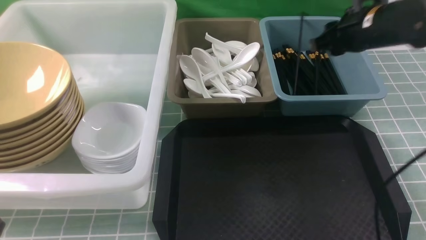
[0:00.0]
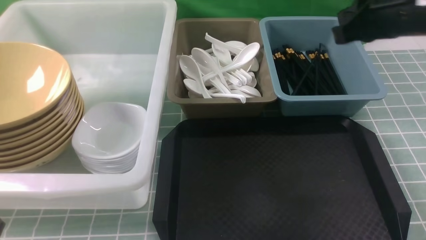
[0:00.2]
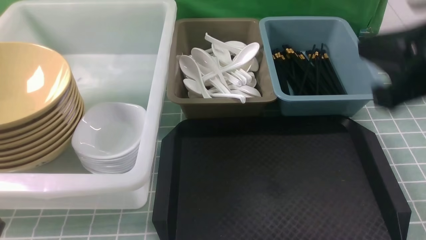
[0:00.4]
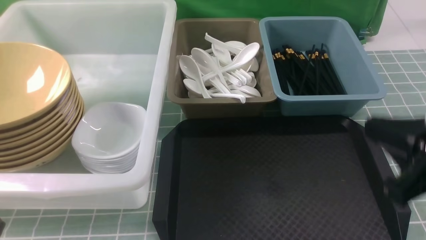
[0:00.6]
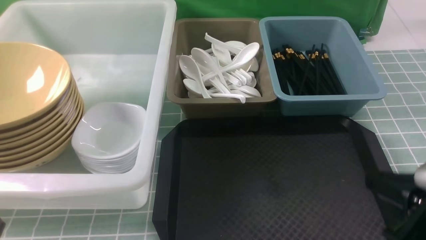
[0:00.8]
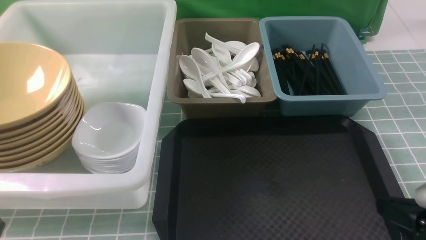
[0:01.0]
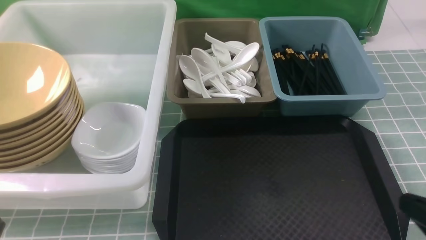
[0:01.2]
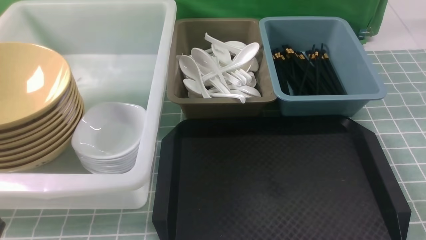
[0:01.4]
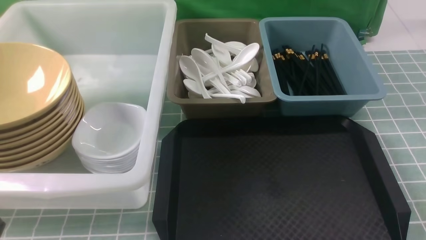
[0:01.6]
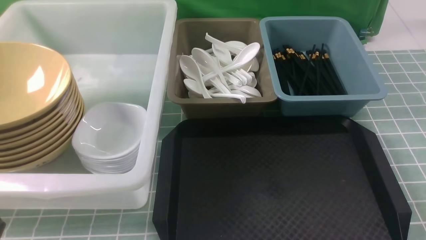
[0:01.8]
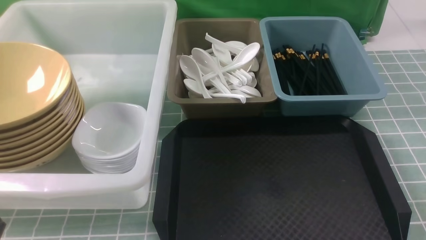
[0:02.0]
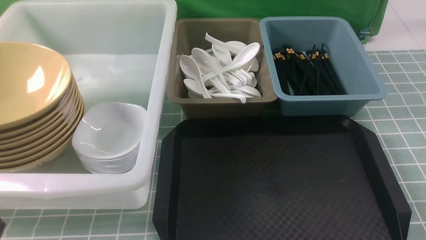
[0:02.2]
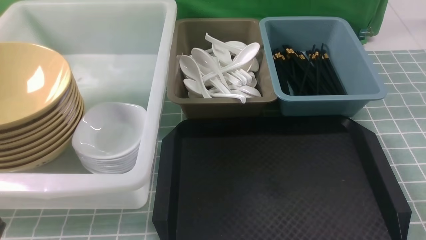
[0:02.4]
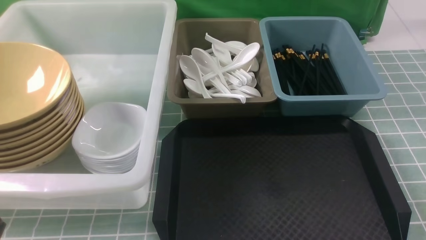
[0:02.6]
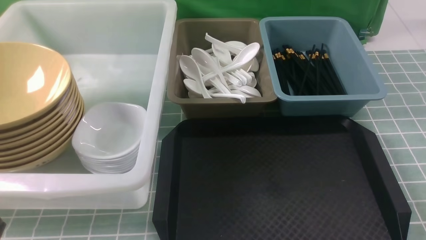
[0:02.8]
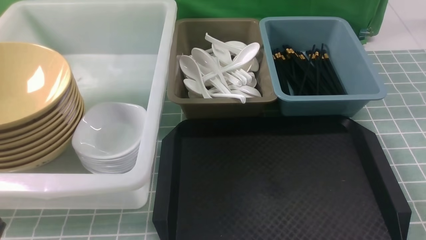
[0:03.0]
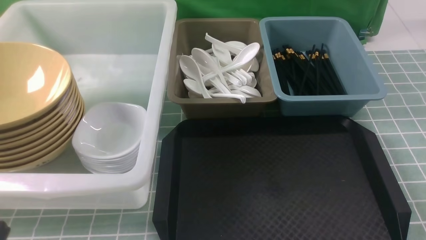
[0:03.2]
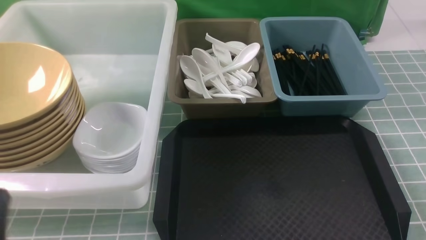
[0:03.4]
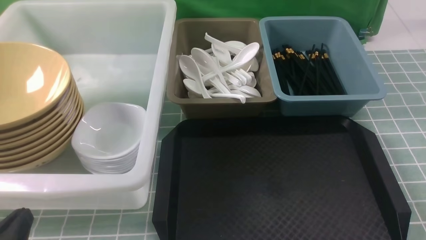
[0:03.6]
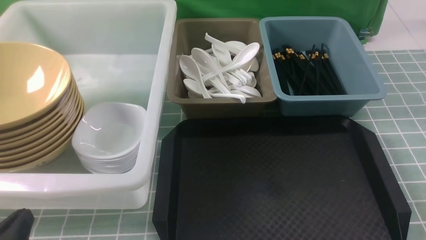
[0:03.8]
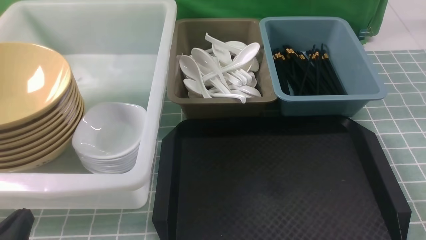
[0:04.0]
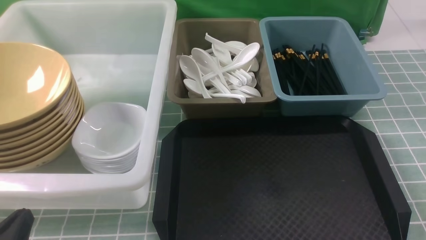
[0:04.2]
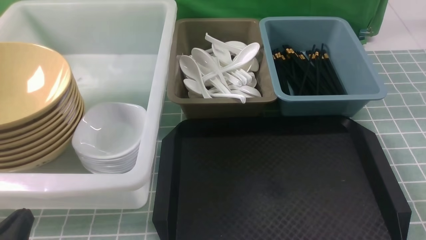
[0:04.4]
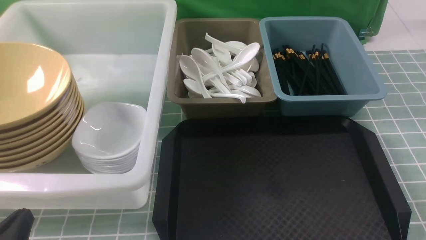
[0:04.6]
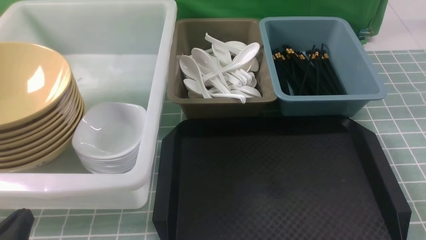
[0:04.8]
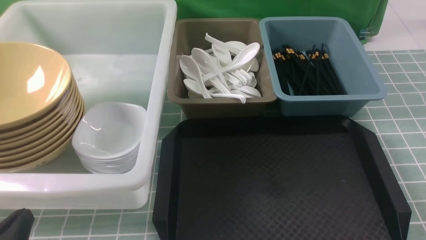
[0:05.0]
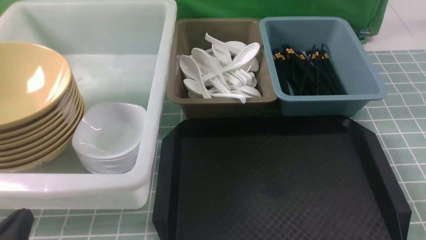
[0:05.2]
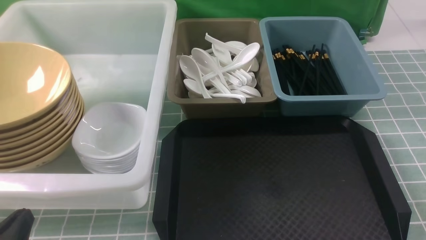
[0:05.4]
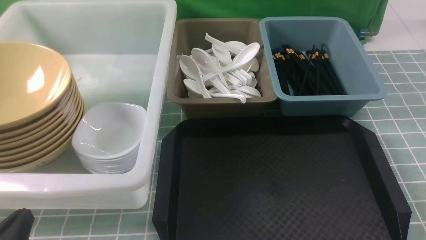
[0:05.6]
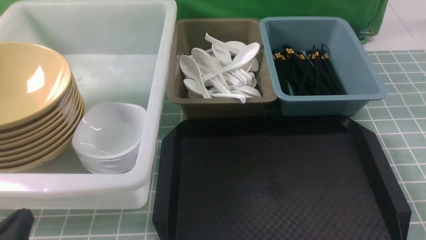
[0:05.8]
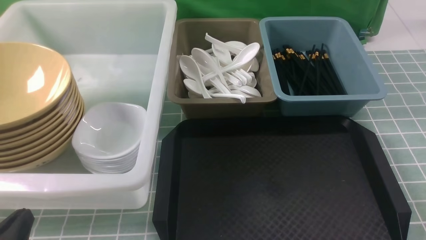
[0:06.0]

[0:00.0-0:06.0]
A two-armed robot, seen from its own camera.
Task of the whole recording: on blue table put chopsticks spoon bowls plates into blue grey white boxes.
0:00.0 to 0:01.6: The right gripper moves backward and downward, about 35 cm, and closes.
0:03.0 to 0:04.4: The left gripper goes approximately 10 cm downward.
0:04.4 to 0:06.0: Both grippers stay about where they are.

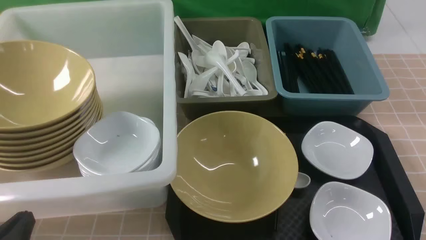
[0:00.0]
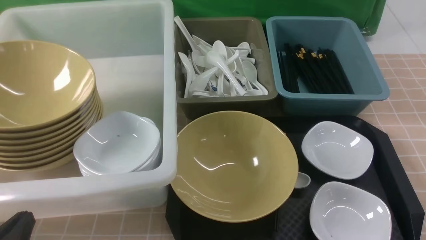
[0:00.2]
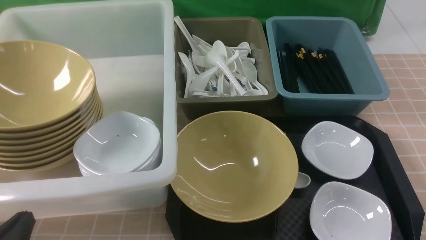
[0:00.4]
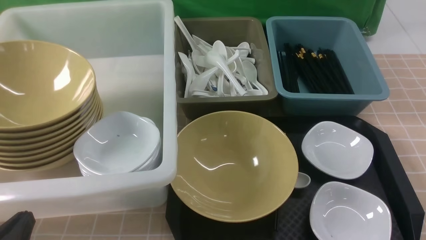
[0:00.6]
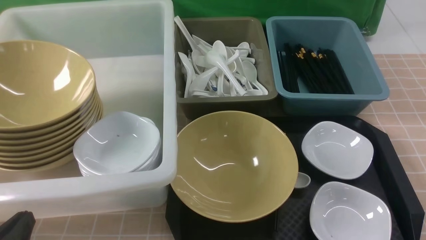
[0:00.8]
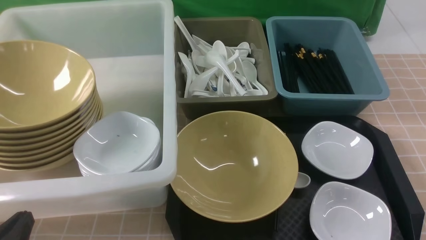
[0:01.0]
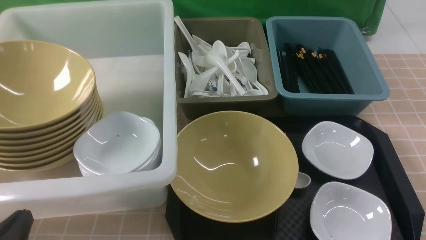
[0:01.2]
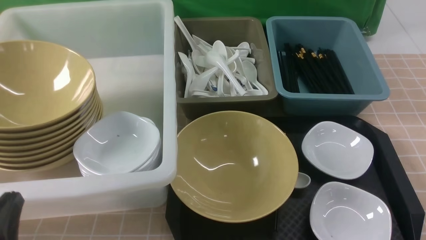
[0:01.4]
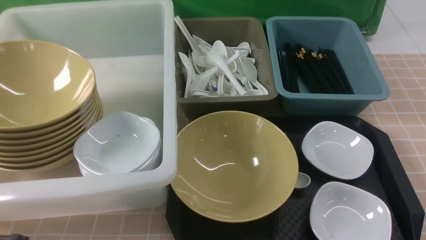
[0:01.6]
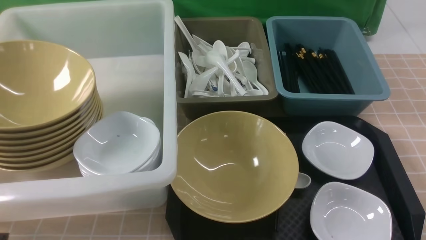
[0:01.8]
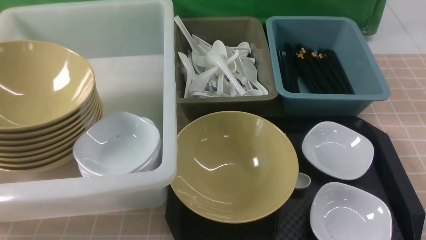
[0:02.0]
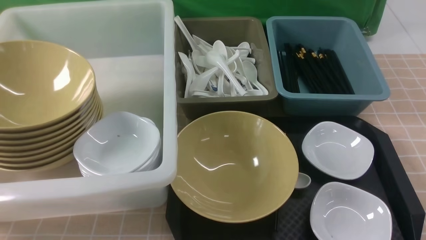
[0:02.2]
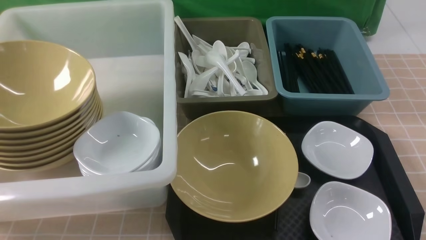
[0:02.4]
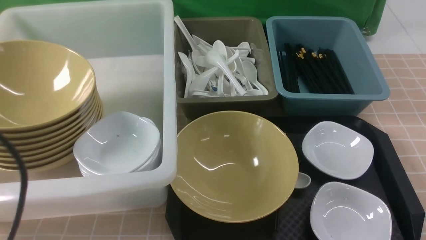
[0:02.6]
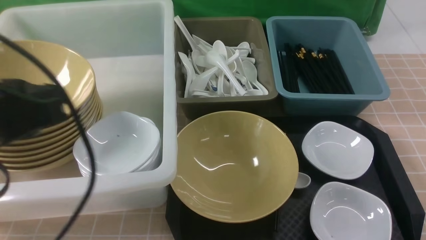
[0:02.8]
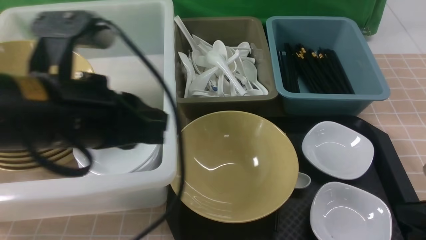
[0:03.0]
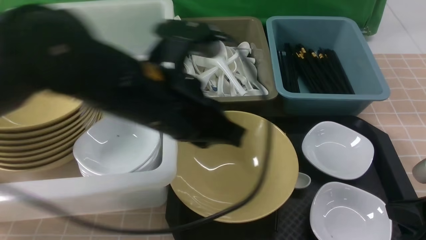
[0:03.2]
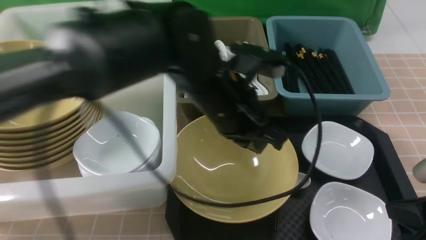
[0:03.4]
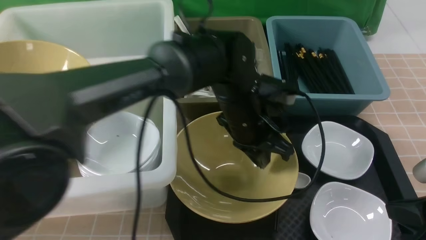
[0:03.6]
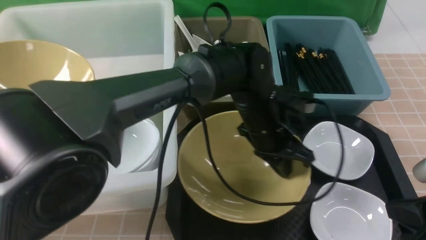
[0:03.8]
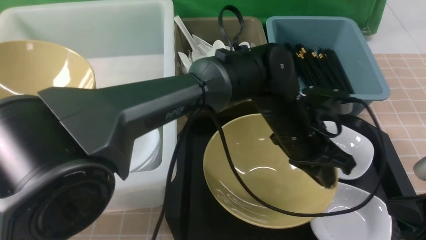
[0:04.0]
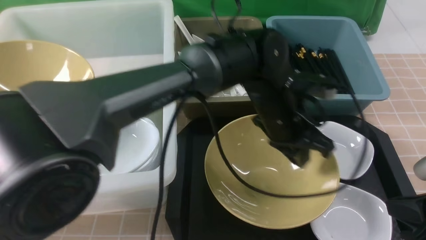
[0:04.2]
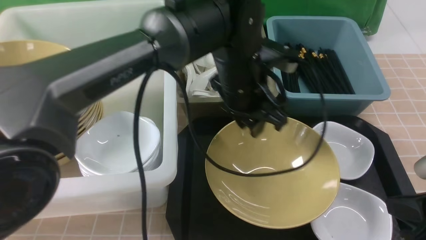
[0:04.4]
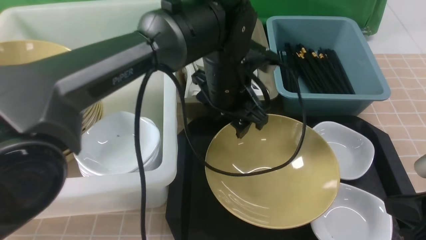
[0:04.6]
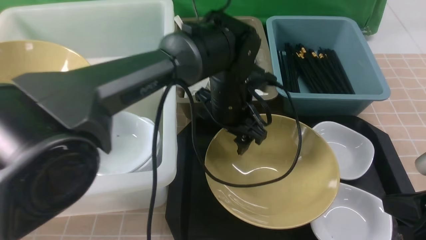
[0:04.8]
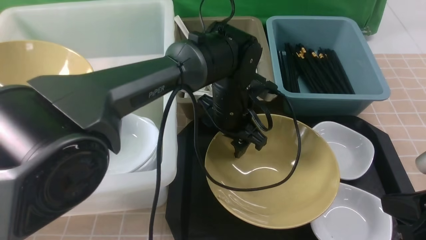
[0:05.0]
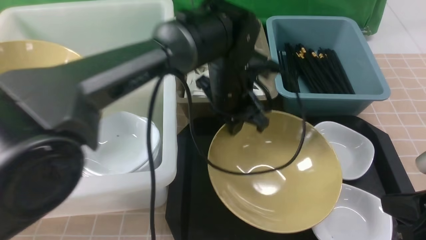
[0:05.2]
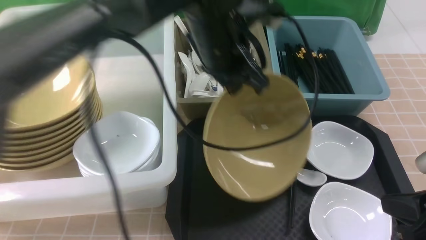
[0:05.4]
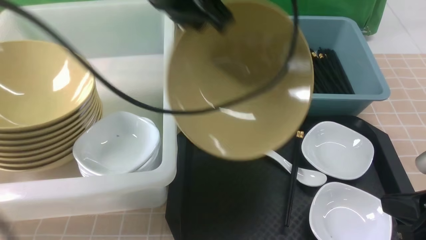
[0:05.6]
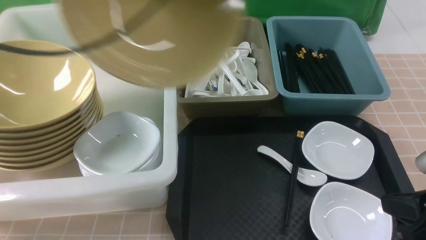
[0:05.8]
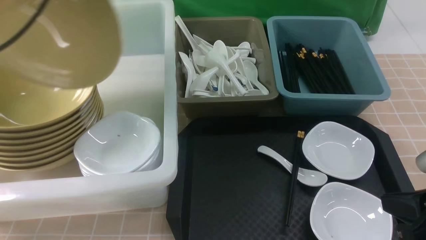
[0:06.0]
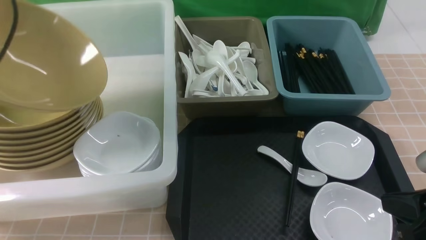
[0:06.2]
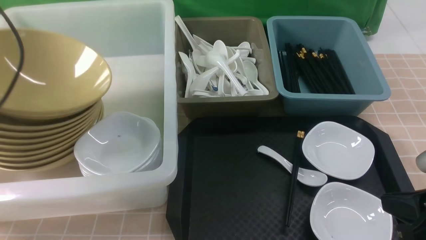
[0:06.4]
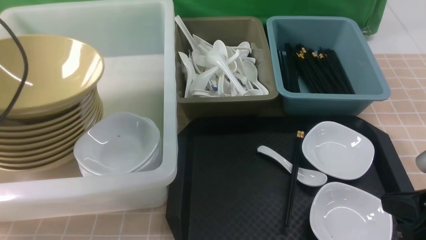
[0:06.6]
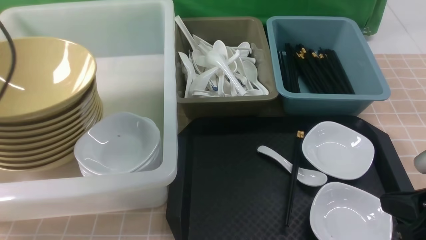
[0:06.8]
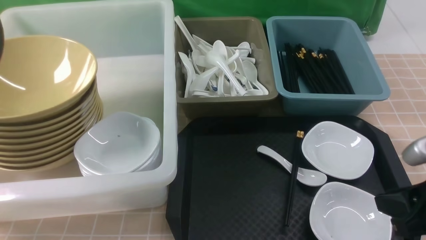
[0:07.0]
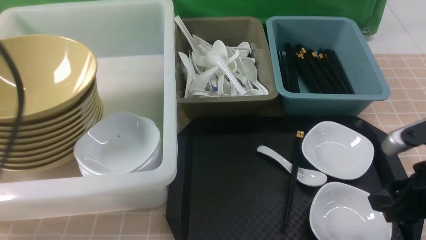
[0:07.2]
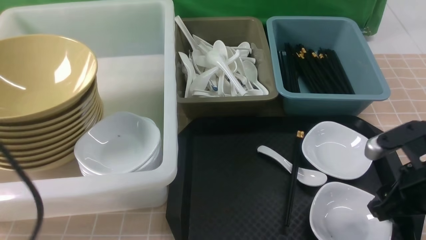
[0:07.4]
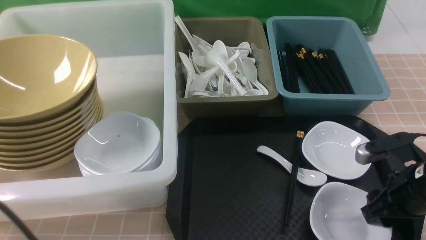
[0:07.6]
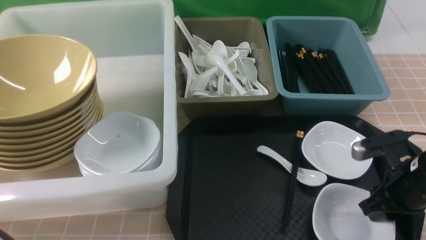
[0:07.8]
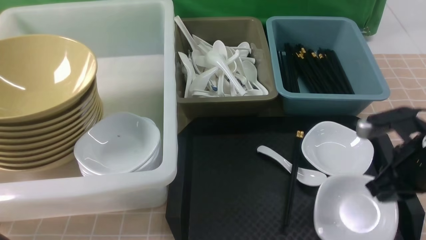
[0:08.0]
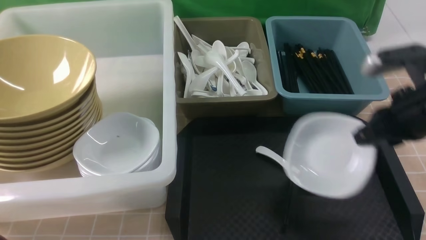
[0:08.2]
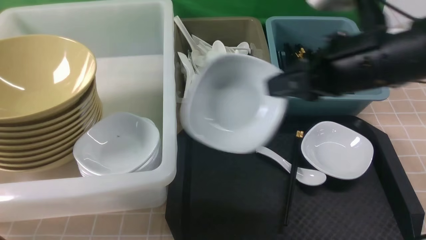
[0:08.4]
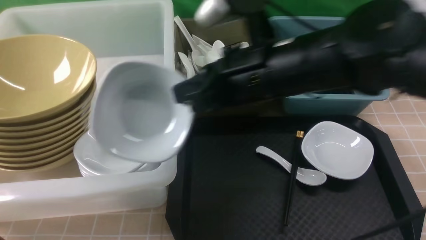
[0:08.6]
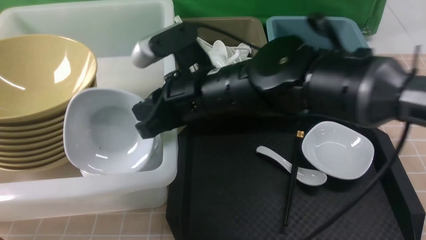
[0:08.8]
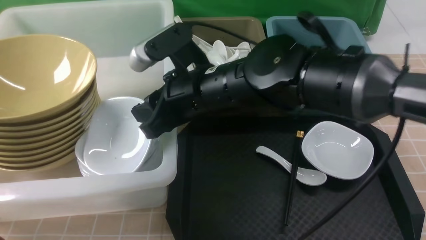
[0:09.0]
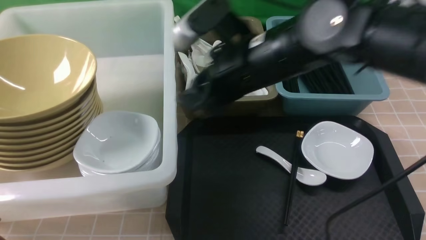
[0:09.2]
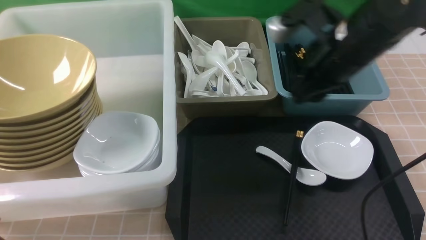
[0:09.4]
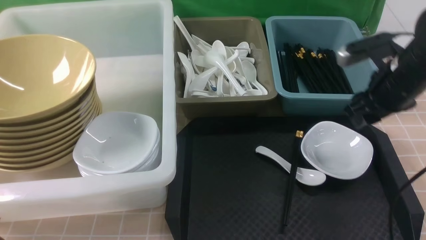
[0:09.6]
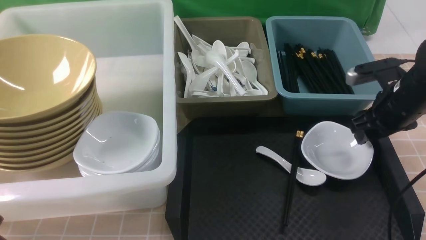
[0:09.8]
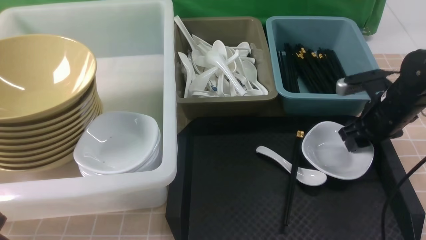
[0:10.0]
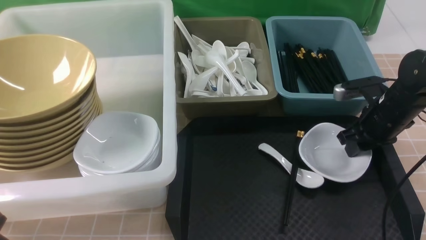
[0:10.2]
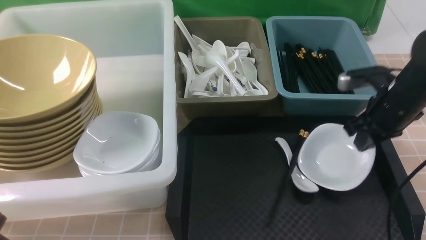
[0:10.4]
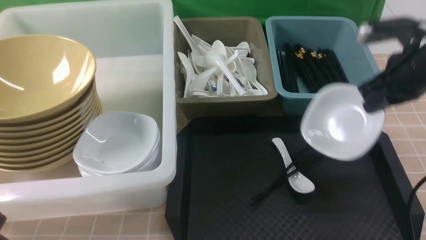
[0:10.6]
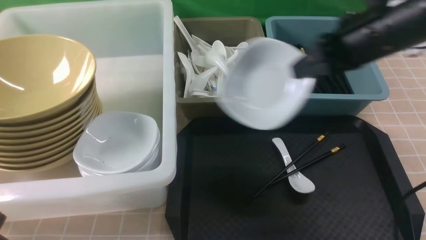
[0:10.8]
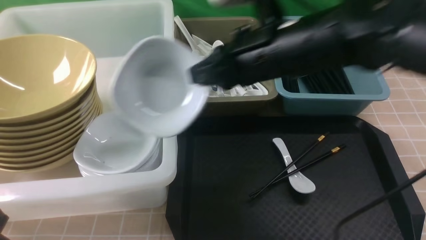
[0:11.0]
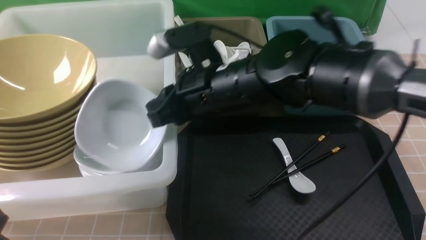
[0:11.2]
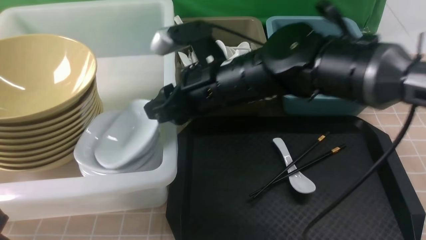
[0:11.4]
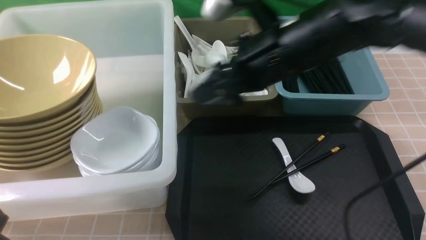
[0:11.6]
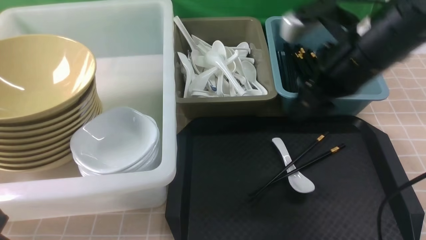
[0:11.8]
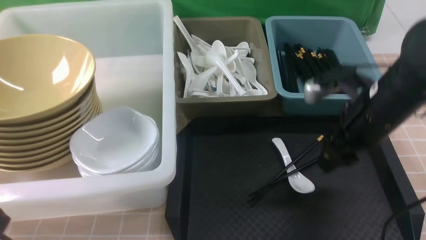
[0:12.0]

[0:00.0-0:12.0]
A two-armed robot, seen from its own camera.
Task of the whole recording: on brown table put chopsticks spoon bowls plates into blue grey white boxes.
Step, 0:00.0 to 0:05.2: use the left arm to grab the yellow noodle bowl on the left.
Step, 0:05.4 to 0:06.8: use the left arm to put the noodle bowl into the large storage box on the left.
Step, 0:07.0 to 0:07.8: use the right arm to grab the plate.
Step, 0:08.0 to 0:09.2: use the right arm to put the plate into the large storage box on the left.
Step, 0:09.4 to 0:10.2: use the right arm to grab the plate.
Step, 0:10.4 to 0:11.6: use the right arm to put the plate into the large storage box on the left.
0:01.6 to 0:03.0: The right gripper goes roughly 5 cm forward, and reaches about 10 cm upward, then returns; the left gripper travels forward, upward and to the right by roughly 25 cm.
0:03.0 to 0:04.4: The left gripper shifts roughly 25 cm to the right, forward and downward, and opens up.
0:04.4 to 0:06.0: The left gripper shifts approximately 40 cm to the left and upward, and closes its fingers.
0:06.0 to 0:07.6: The left gripper moves backward and downward, roughly 25 cm, and opens, then closes again. The right gripper heads forward and downward, covering roughly 10 cm, and opens its fingers.
0:07.6 to 0:09.0: The right gripper travels to the left and upward by some 30 cm, and closes, then reopens.
0:09.0 to 0:10.4: The right gripper is displaced to the right by approximately 25 cm, and opens, then closes again.
0:10.4 to 0:12.0: The right gripper moves backward, approximately 5 cm, goes to the left and returns, roughly 25 cm each way, and opens up.
